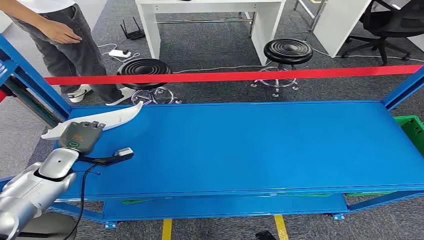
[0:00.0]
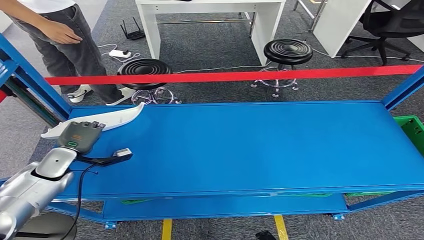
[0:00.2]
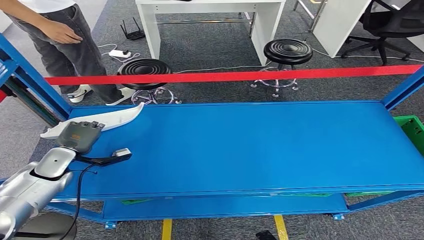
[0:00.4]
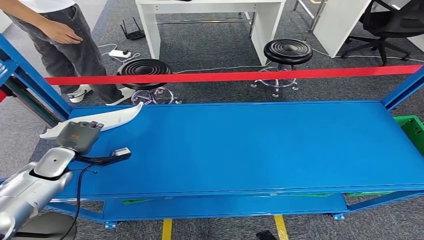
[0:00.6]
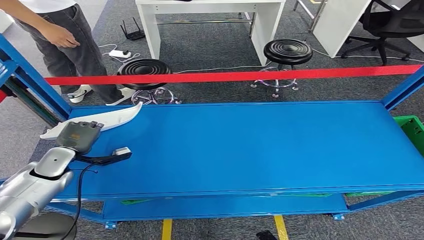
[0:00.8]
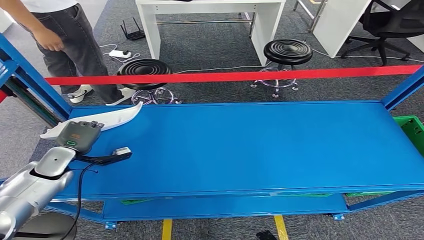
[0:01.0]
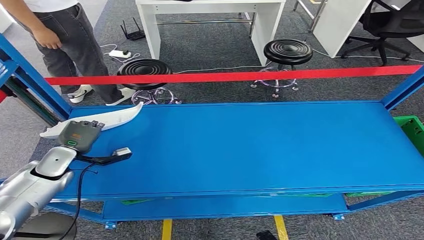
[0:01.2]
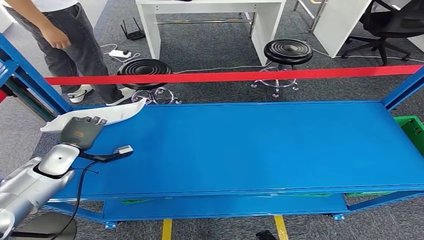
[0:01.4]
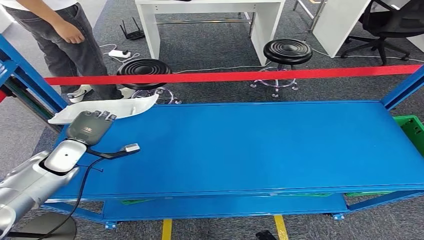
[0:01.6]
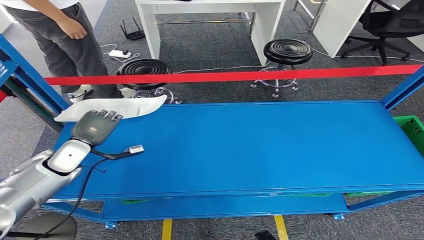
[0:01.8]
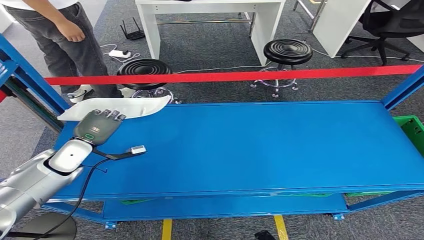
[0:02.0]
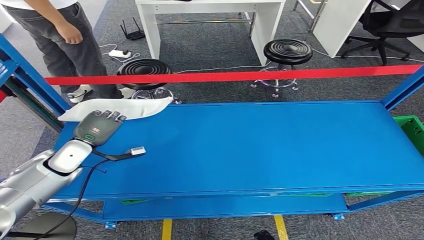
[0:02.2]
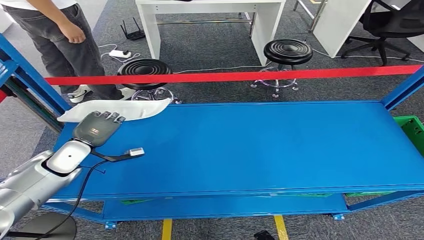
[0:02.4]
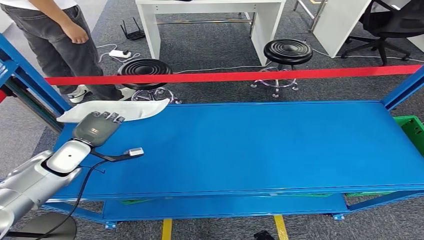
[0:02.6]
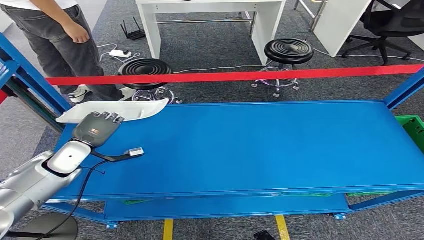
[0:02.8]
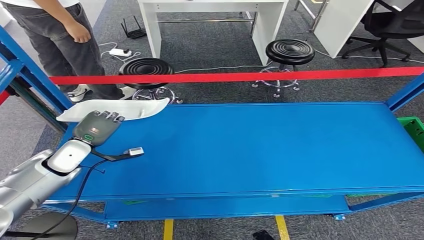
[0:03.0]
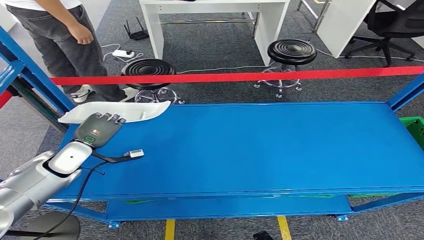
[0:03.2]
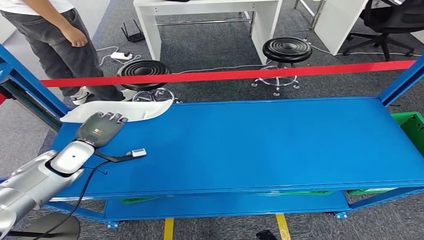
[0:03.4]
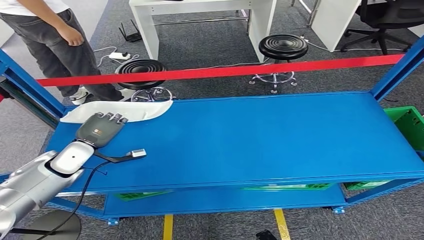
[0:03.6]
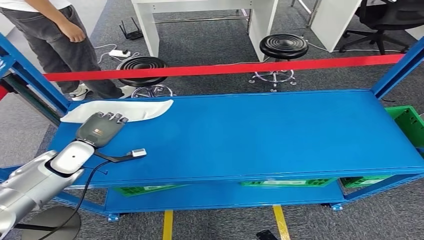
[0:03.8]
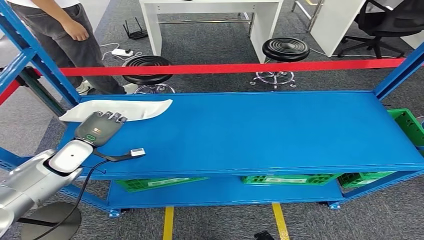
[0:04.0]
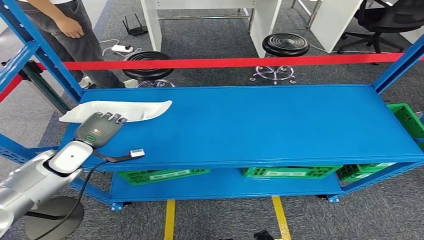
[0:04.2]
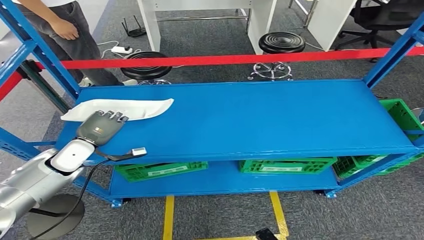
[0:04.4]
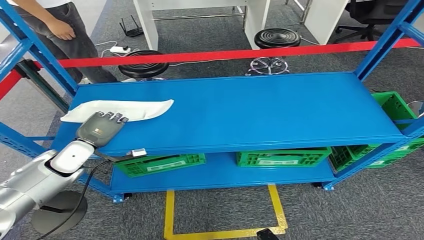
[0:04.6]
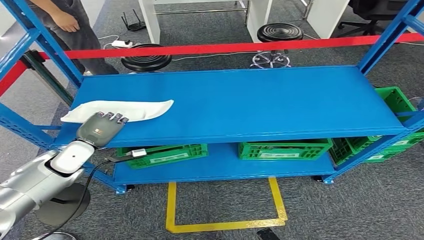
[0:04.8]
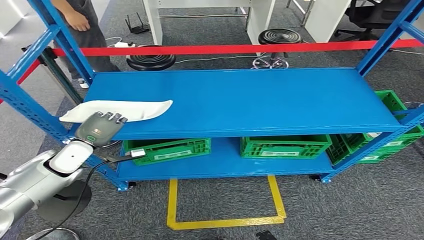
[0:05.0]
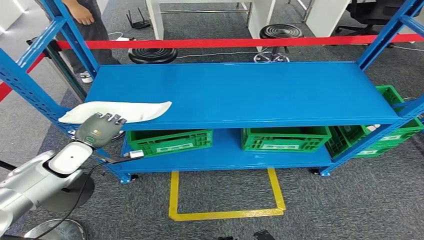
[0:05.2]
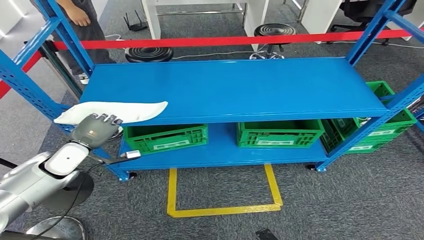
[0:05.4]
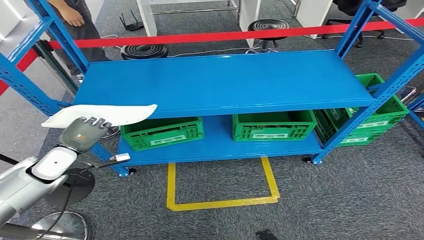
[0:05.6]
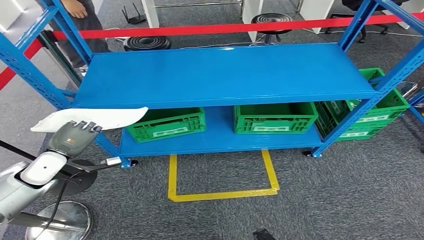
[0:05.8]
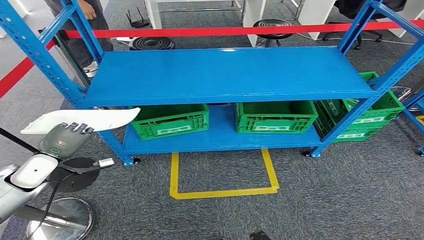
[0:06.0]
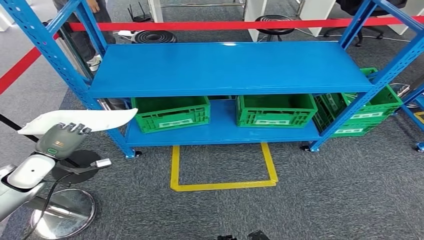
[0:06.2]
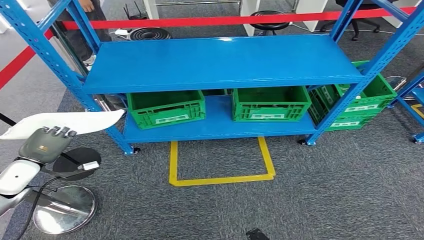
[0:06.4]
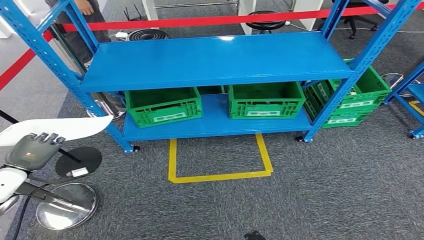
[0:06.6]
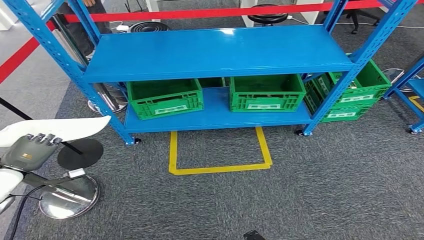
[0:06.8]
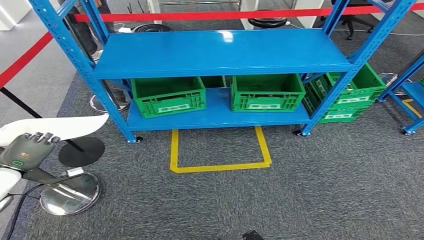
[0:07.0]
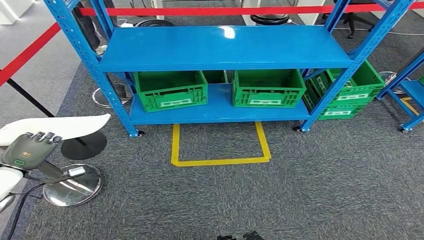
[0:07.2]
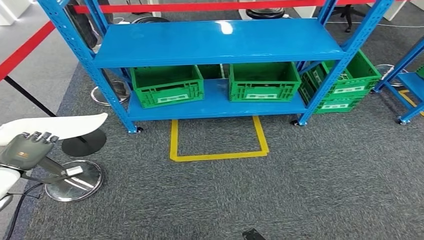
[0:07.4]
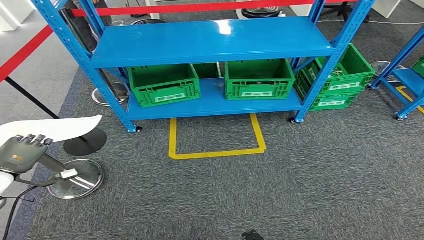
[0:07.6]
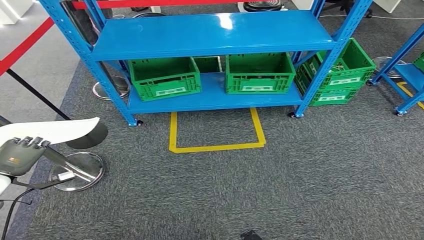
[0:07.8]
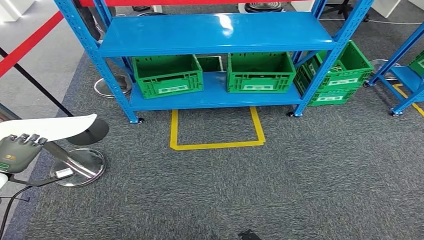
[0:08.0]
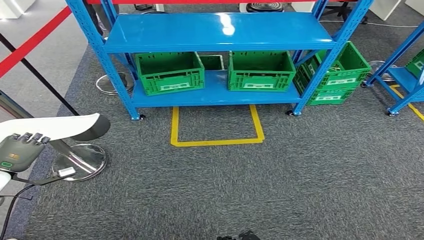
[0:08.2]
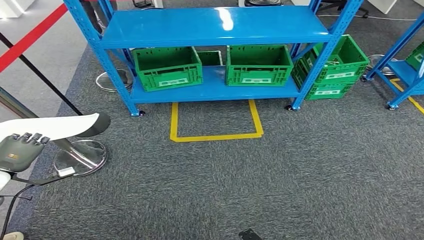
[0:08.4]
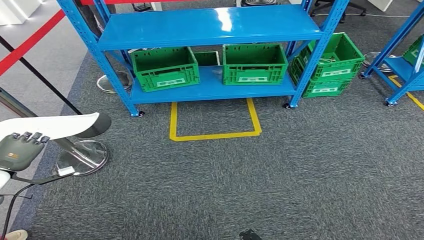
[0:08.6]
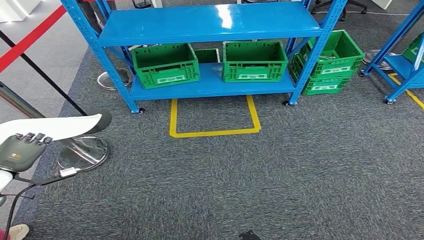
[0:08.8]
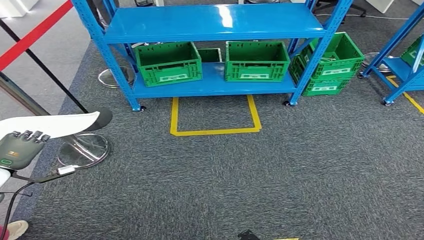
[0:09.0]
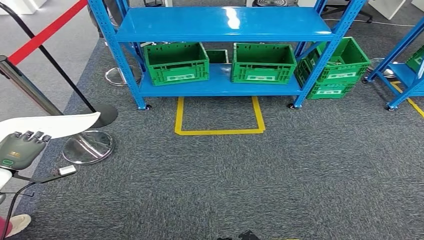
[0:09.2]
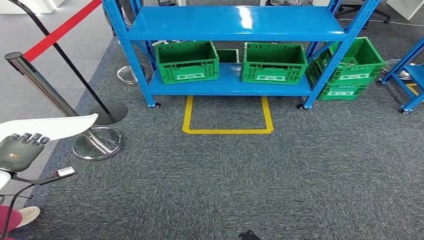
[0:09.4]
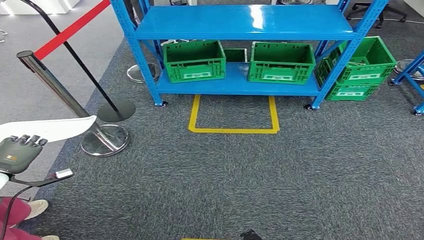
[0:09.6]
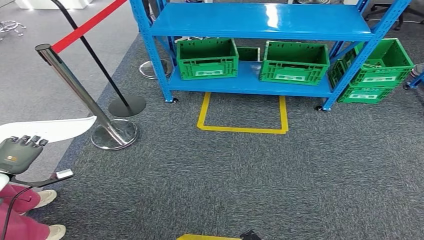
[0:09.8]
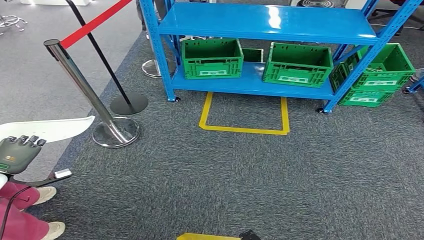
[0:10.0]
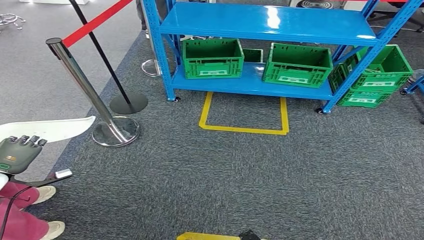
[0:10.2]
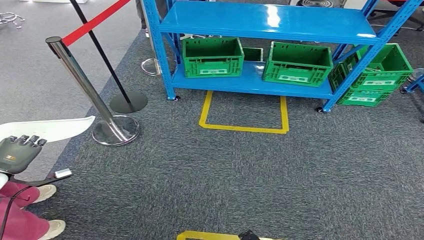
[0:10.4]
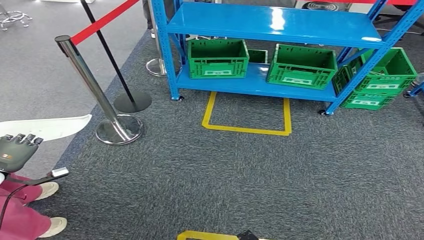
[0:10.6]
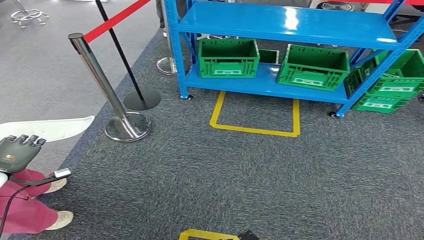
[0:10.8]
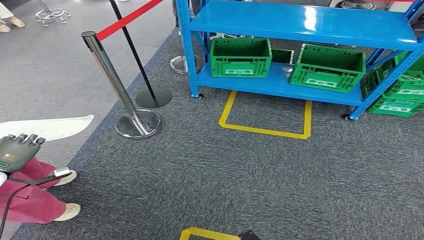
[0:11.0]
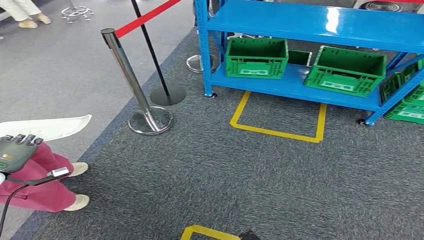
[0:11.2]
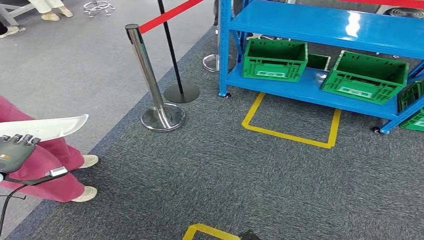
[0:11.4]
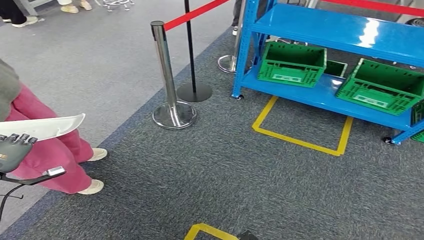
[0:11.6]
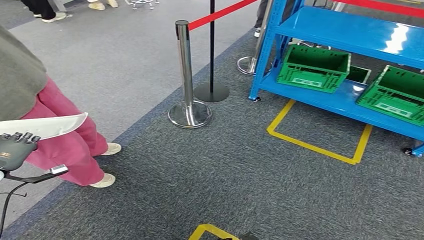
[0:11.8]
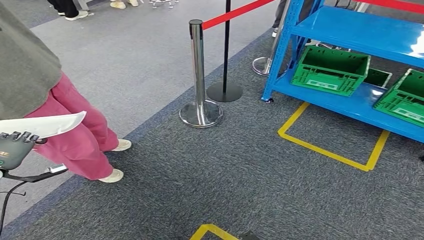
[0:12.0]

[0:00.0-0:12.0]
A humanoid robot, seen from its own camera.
Step, 0:00.0 to 0:03.6: Pick up the small component from the shelf.
0:01.6 to 0:03.0: The hands move only a little.

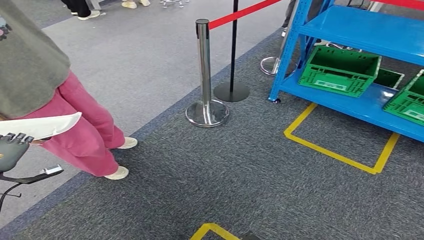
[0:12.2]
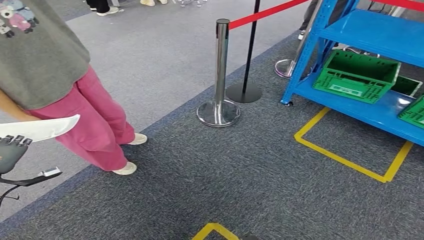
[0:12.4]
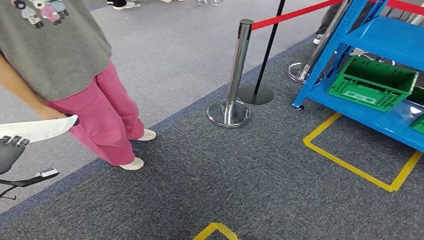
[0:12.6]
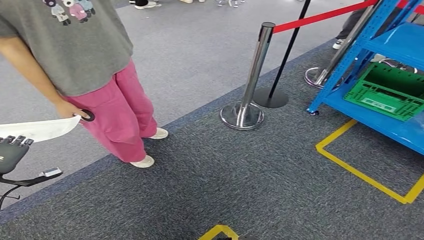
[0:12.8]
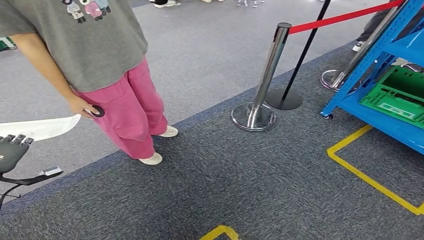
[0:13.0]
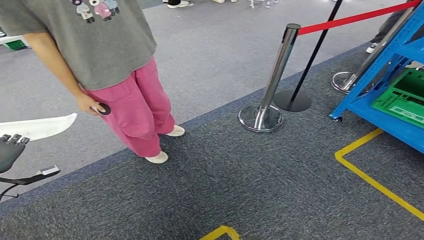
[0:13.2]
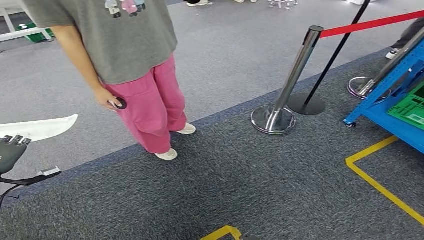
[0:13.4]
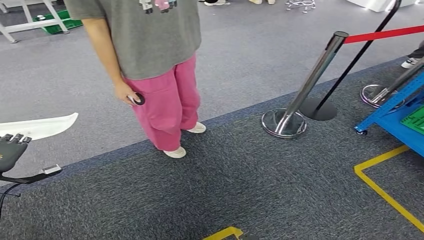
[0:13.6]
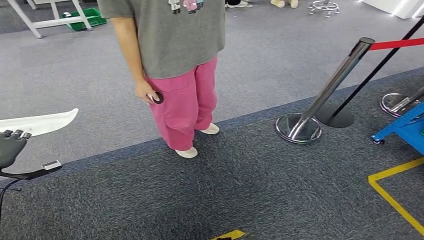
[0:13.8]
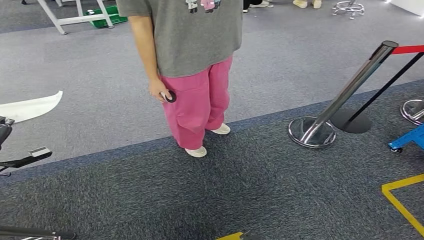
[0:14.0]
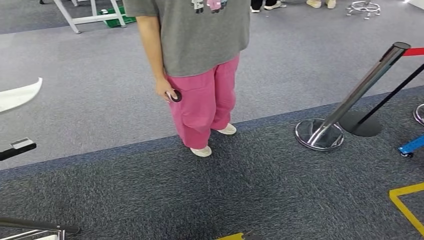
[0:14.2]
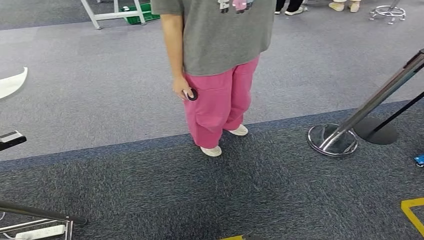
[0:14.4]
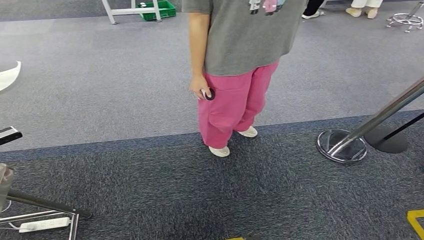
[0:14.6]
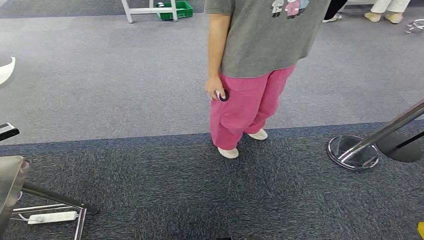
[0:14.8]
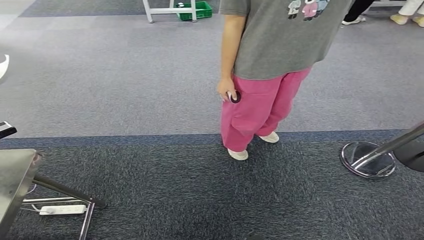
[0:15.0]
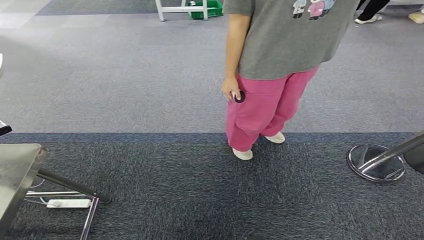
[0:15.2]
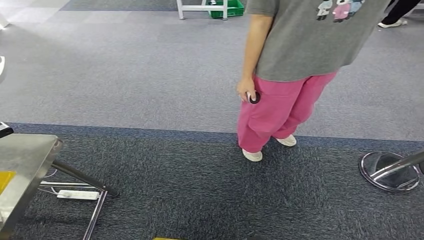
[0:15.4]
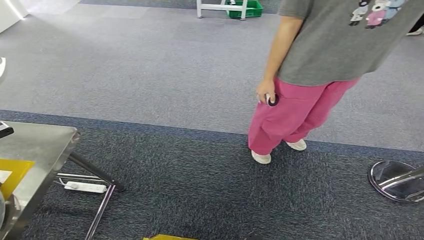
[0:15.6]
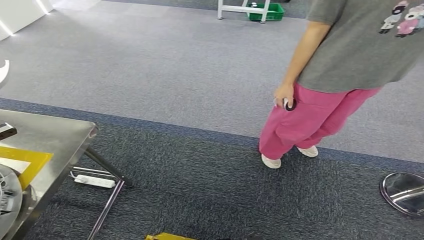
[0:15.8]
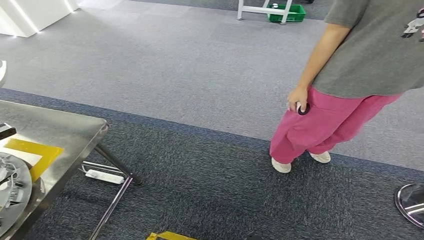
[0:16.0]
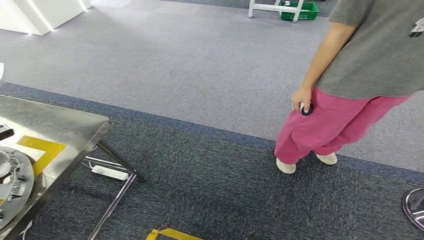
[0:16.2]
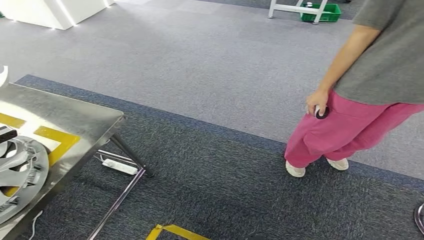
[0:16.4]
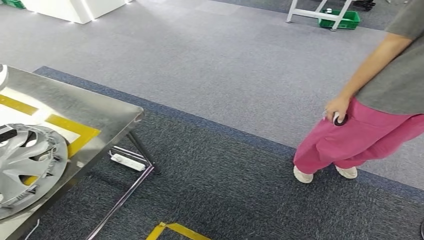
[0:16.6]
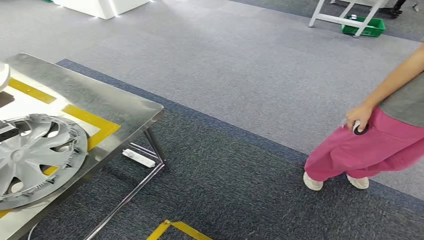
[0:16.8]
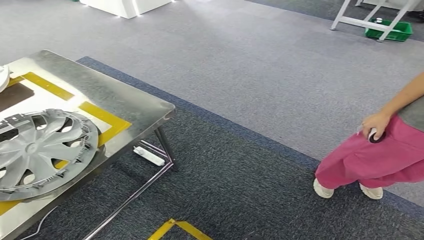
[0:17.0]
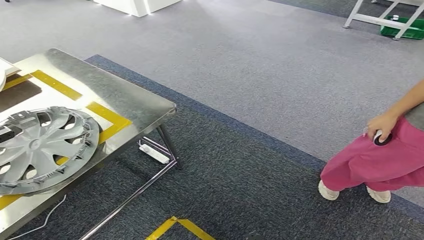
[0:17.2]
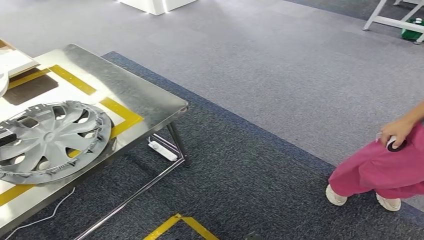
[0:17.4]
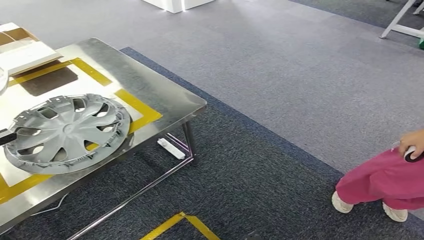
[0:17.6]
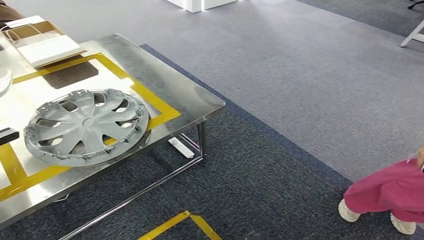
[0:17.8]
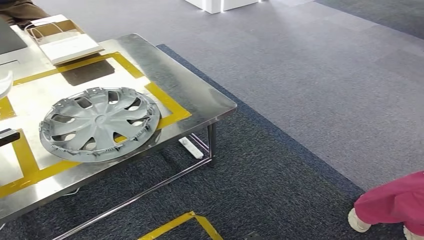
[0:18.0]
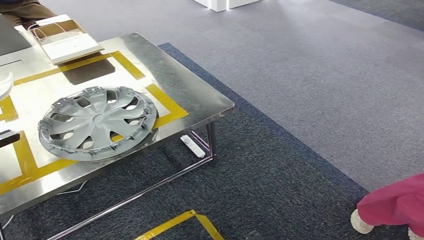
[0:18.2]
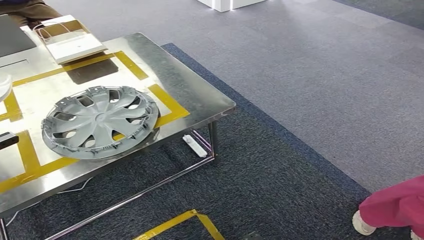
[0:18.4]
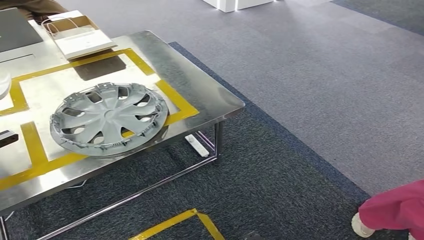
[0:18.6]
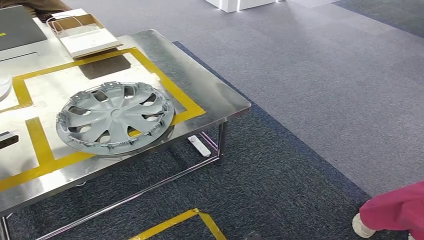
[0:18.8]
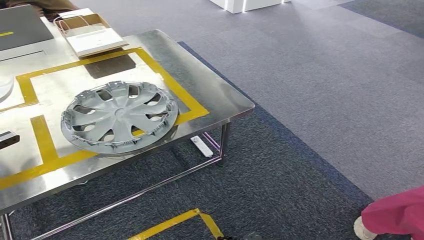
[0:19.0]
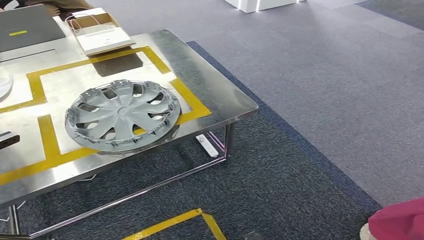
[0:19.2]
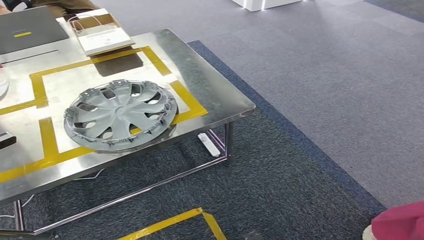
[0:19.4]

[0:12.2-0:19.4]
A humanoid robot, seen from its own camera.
Step, 0:12.2 to 0:18.6: Move the small component to the workbench.
